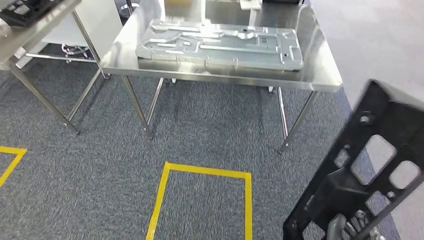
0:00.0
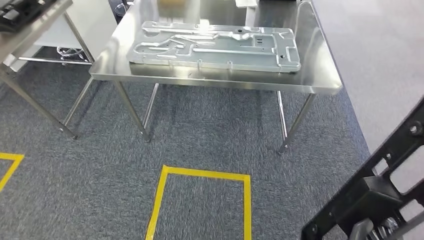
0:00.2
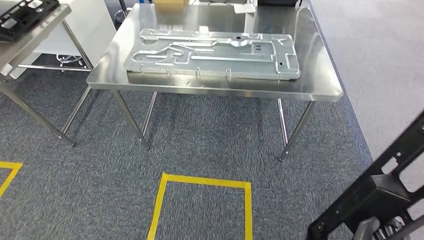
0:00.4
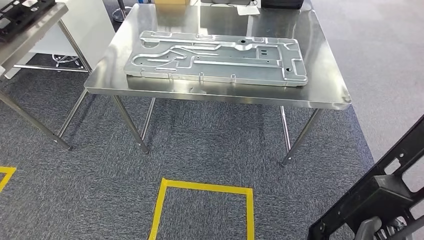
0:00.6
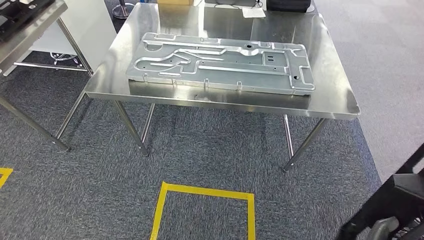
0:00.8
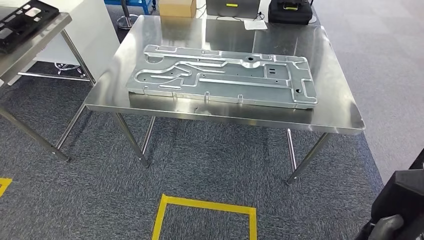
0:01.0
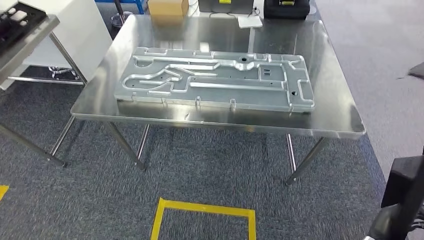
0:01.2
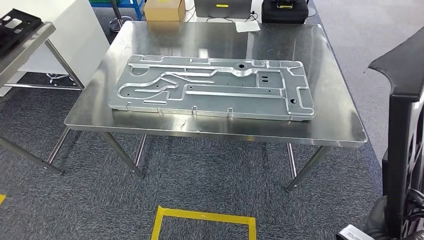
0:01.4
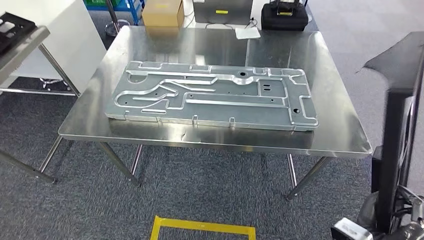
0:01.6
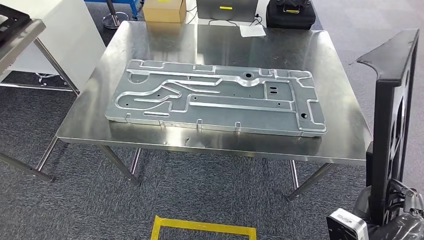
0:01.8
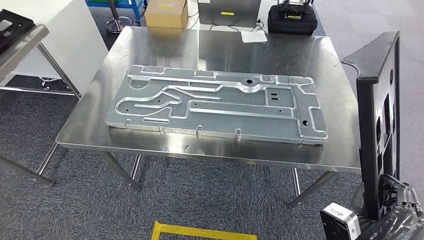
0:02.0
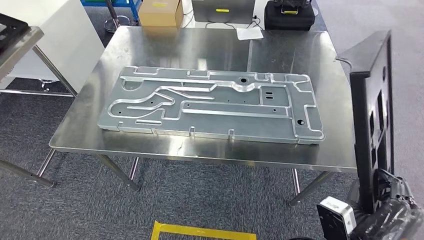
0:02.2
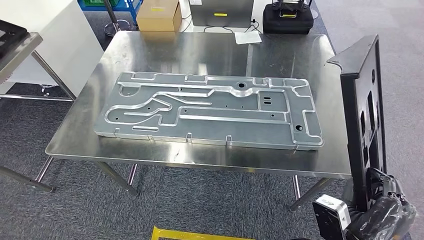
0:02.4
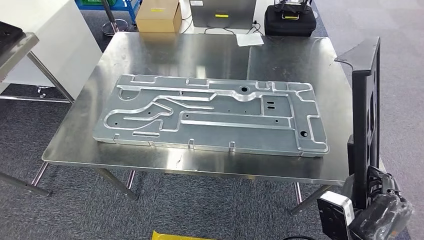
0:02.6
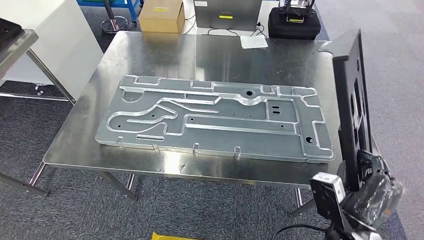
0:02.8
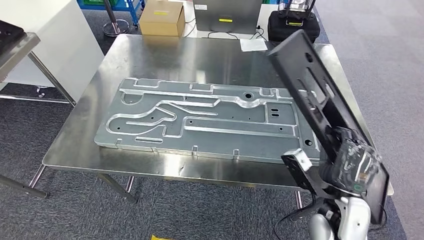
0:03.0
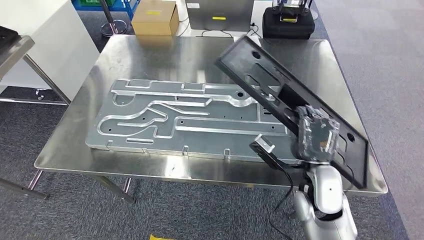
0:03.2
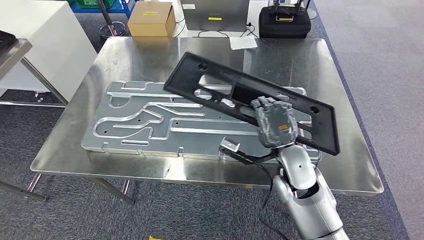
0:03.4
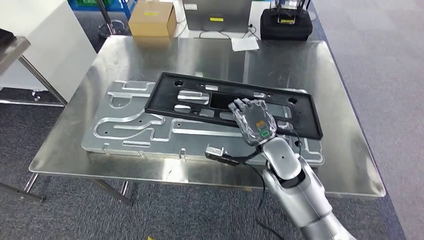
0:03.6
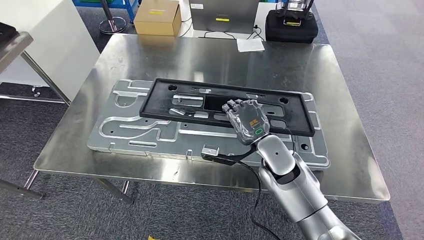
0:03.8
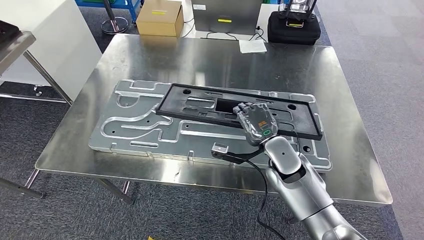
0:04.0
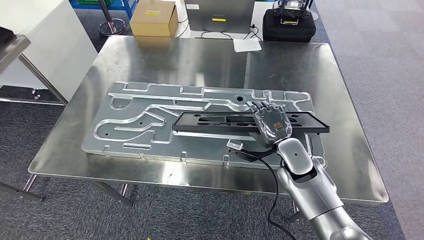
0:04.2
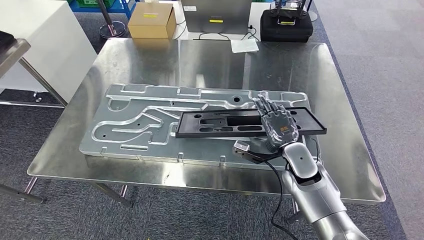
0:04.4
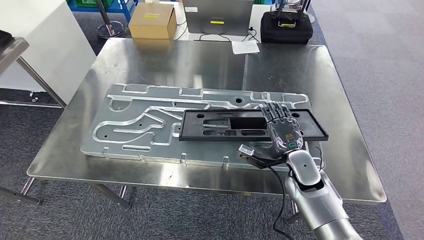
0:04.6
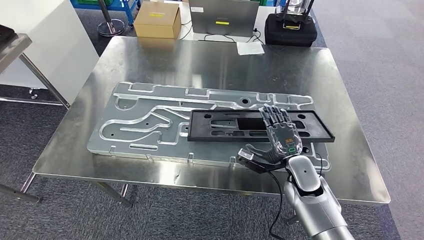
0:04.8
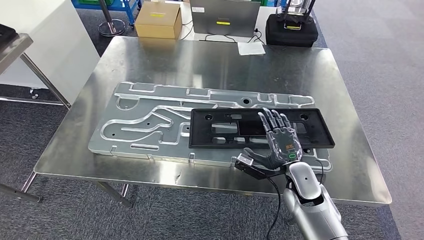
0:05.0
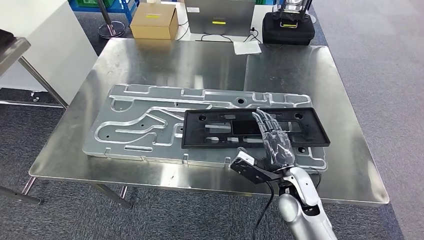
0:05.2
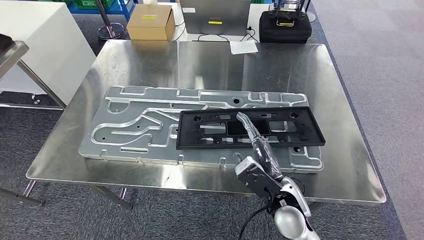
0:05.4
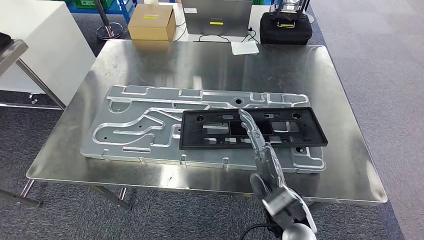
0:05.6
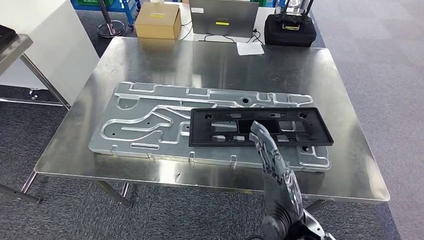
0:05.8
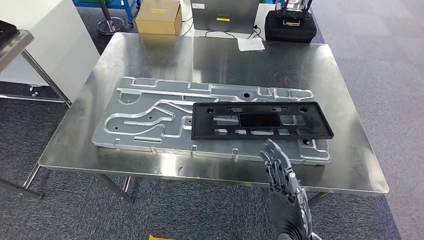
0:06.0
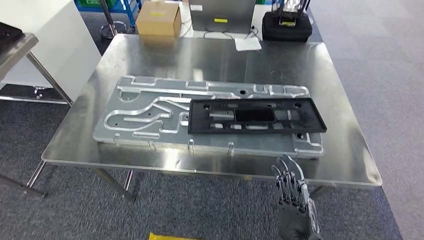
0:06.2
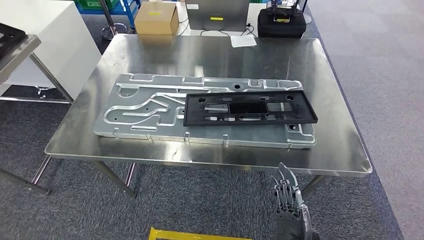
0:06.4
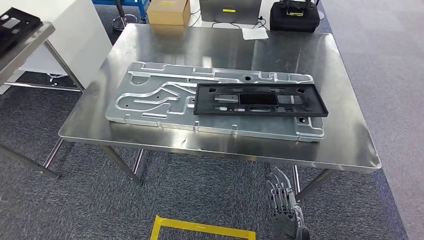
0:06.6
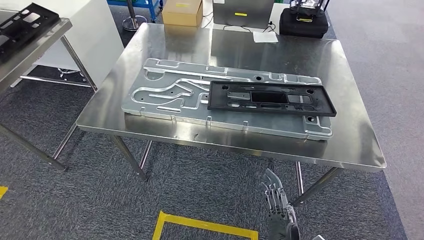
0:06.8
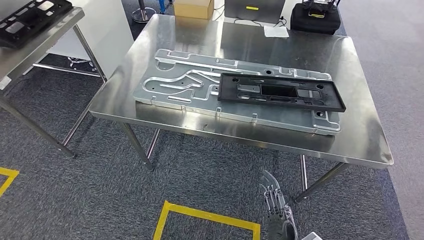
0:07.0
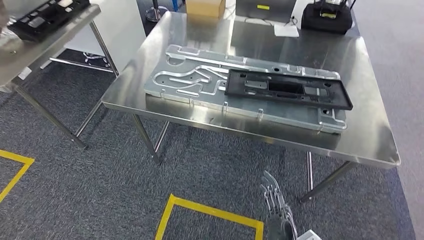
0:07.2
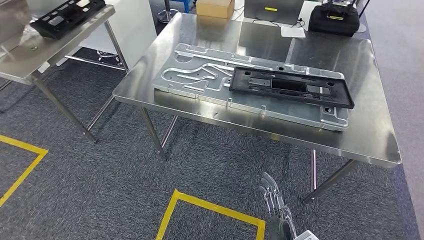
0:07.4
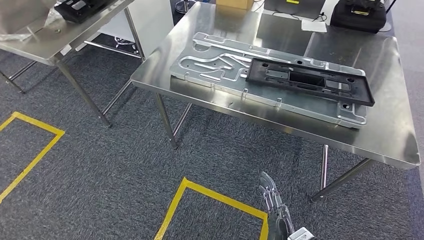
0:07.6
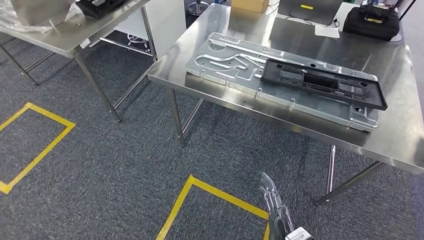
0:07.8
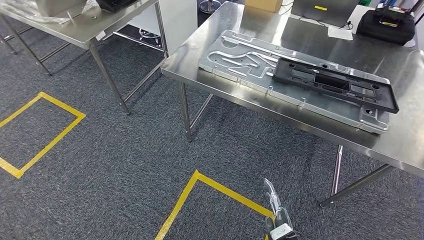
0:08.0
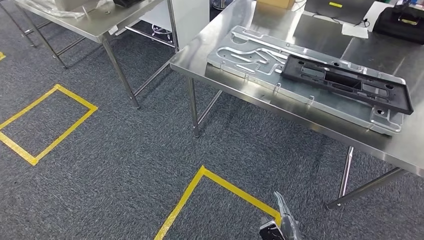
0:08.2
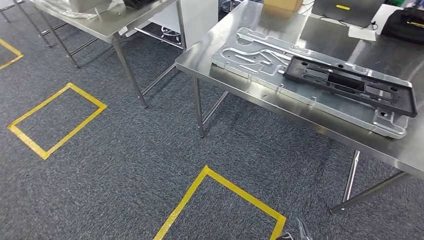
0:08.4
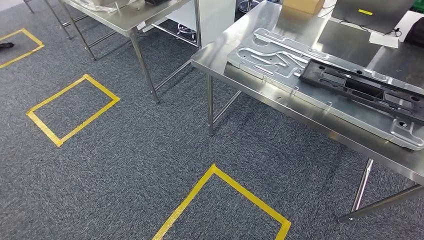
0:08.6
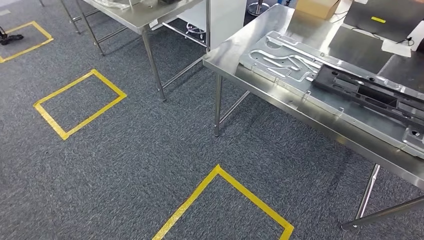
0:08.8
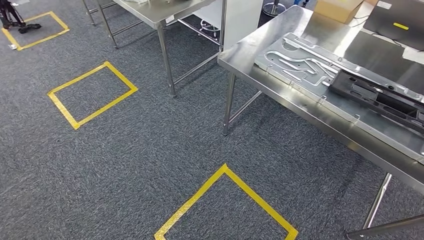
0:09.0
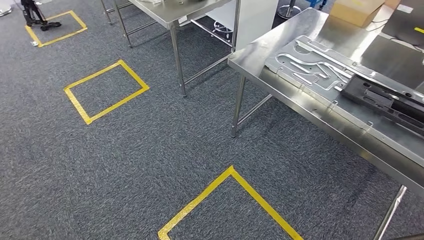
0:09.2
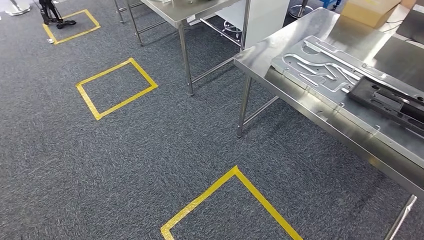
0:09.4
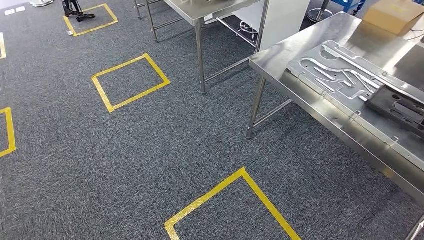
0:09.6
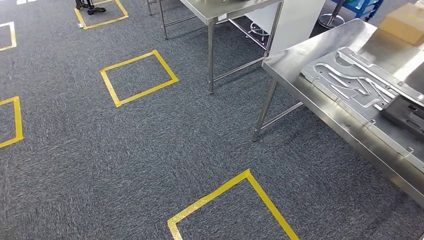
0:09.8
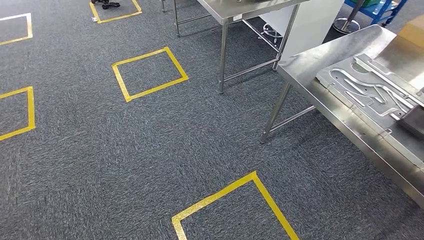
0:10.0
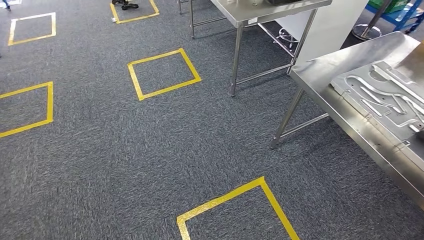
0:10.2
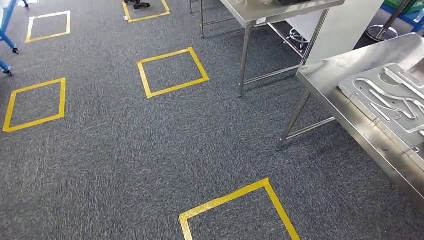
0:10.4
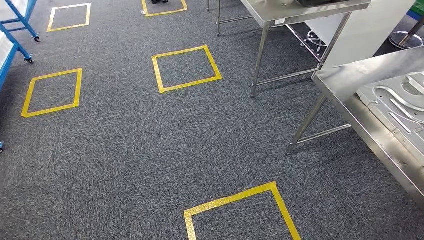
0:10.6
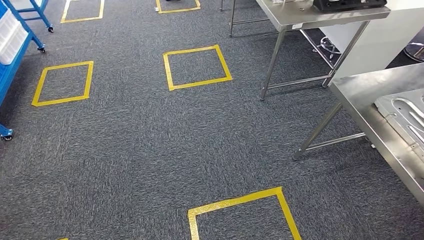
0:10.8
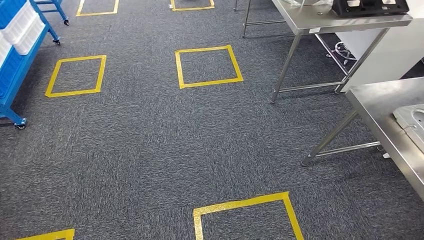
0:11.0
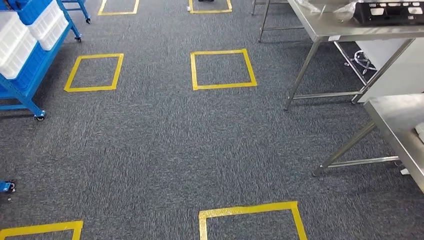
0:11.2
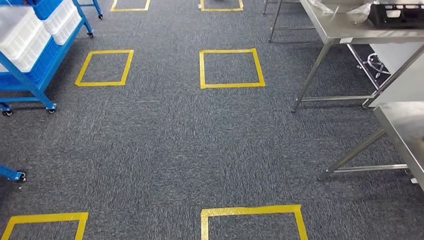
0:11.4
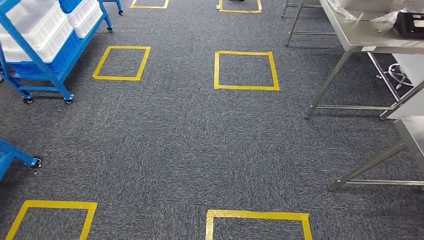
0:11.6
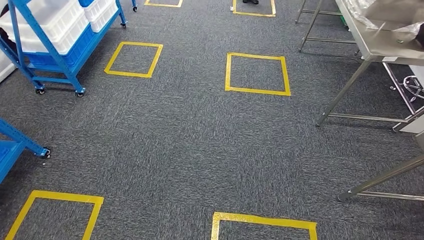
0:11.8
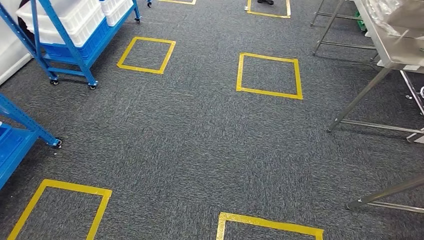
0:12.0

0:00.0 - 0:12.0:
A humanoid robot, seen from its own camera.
Step, 0:00.0 - 0:02.4: Move the large material to the workbench.
Step, 0:02.6 - 0:07.8: Insert the large material into the corresponding slot on the workbench.

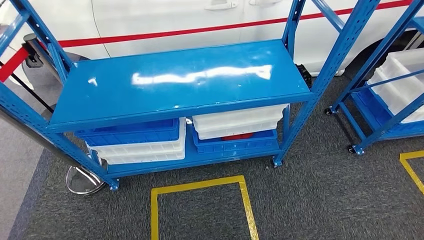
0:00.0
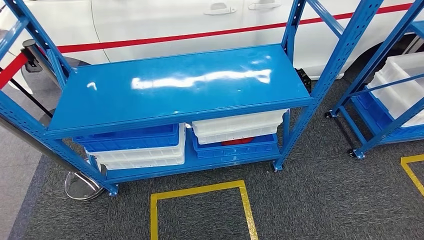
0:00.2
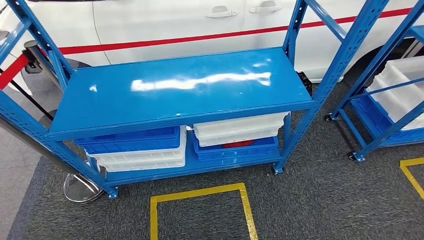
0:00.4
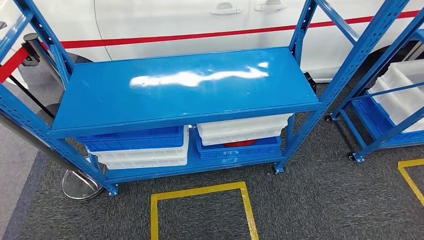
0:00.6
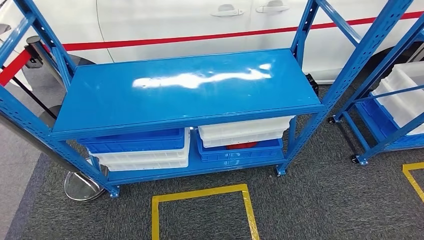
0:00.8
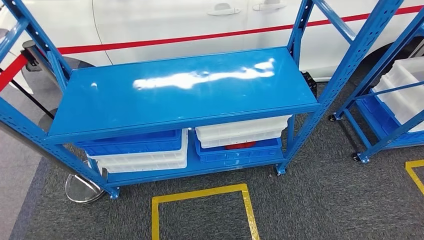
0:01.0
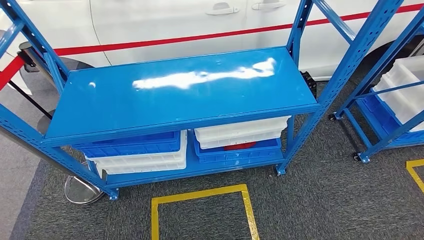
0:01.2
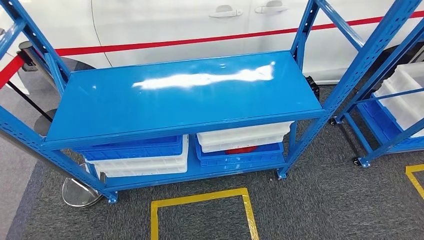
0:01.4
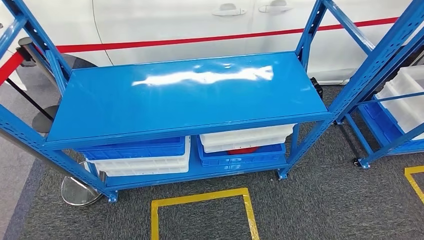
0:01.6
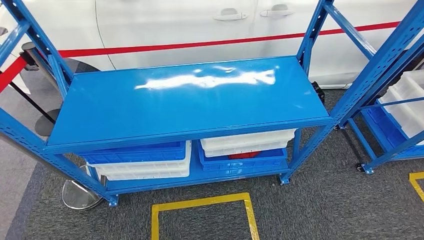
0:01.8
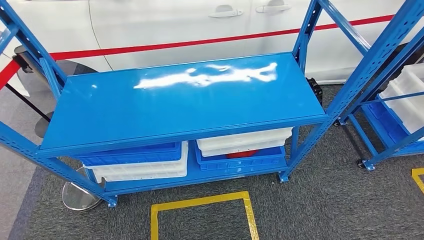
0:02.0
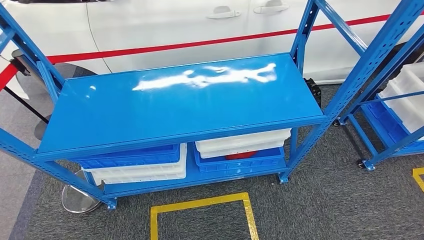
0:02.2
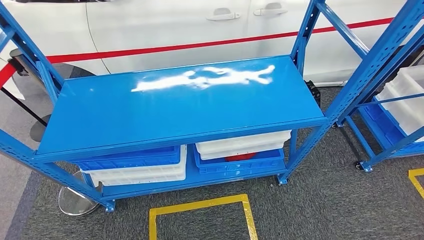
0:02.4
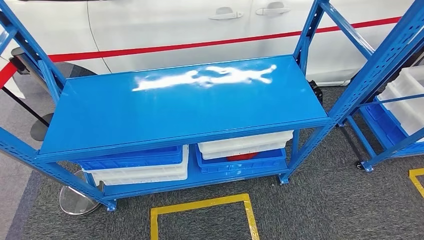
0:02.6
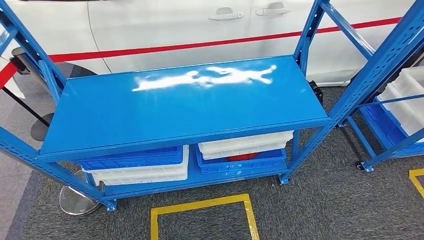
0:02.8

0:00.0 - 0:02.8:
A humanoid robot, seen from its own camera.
Step, 0:00.0 - 0:02.8: Move to the initial position of the shelf.

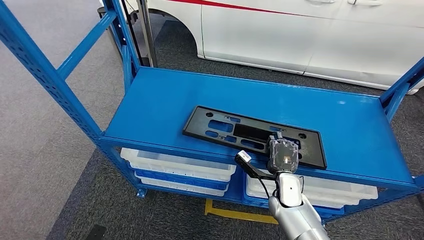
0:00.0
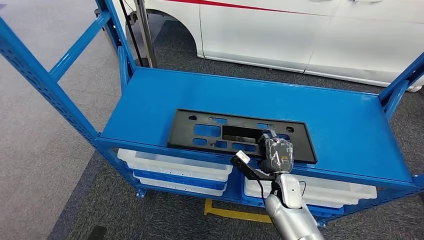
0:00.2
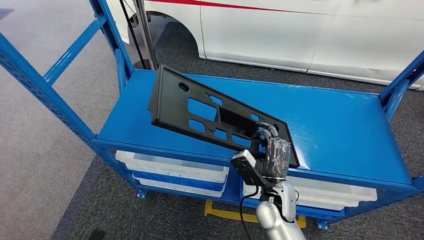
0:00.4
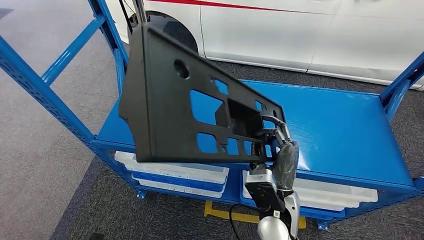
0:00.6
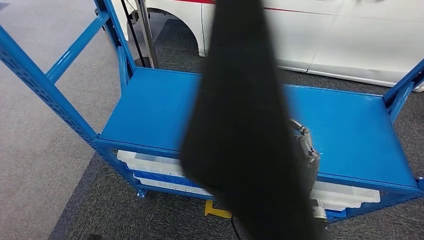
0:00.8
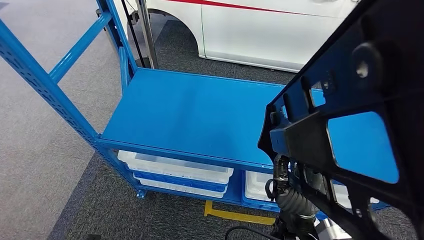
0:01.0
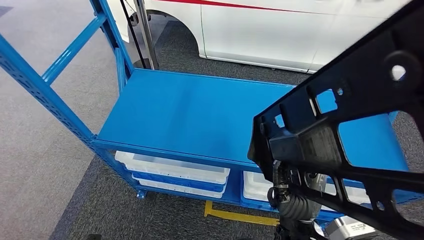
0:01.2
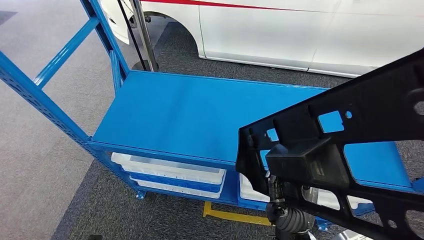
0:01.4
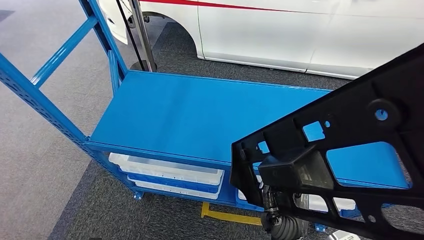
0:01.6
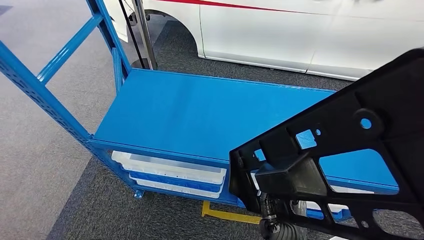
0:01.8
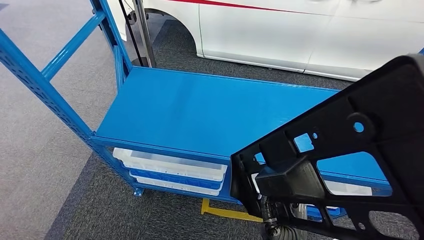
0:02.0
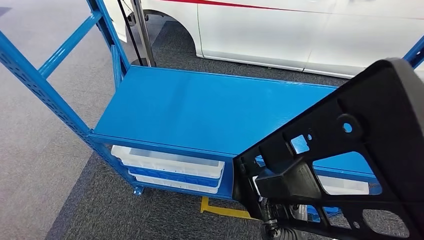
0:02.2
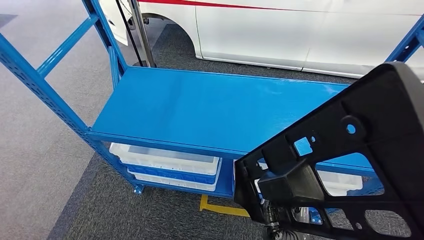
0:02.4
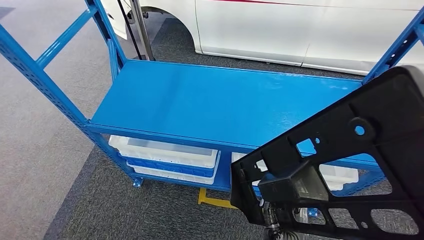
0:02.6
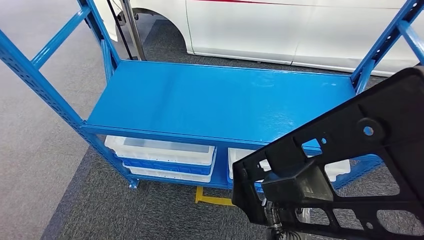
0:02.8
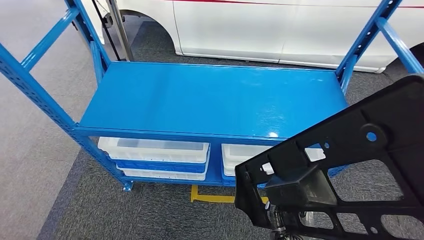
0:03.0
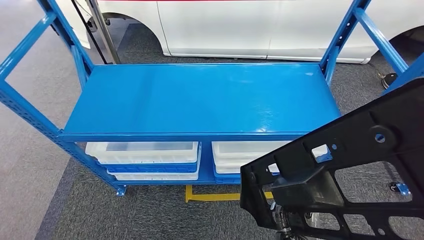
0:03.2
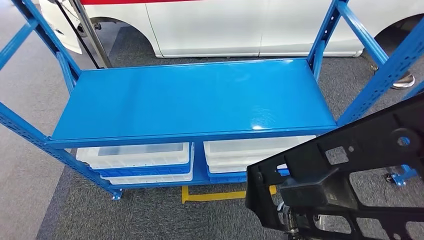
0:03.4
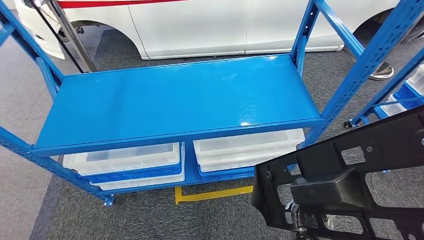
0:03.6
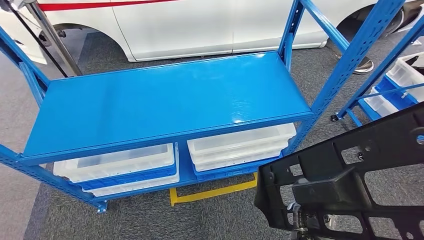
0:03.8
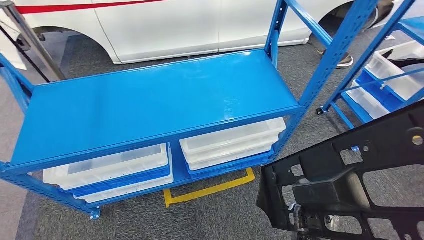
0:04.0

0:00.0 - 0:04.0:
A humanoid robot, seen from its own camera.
Step, 0:00.0 - 0:02.2: Pick up the large material from the shelf.
